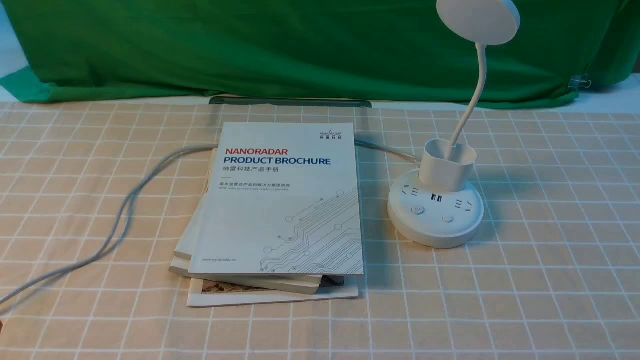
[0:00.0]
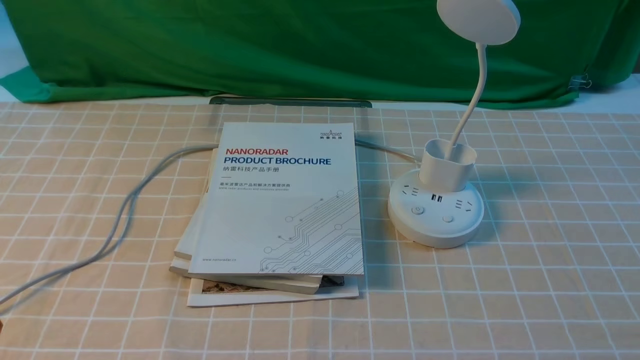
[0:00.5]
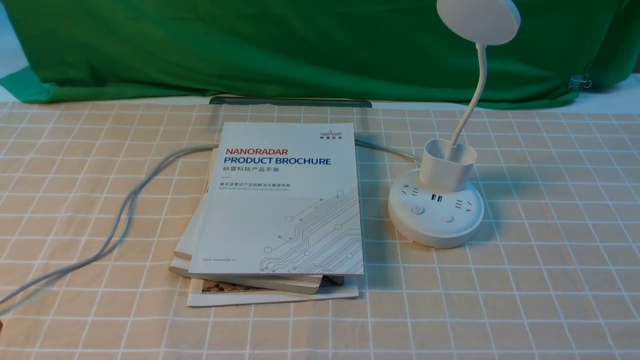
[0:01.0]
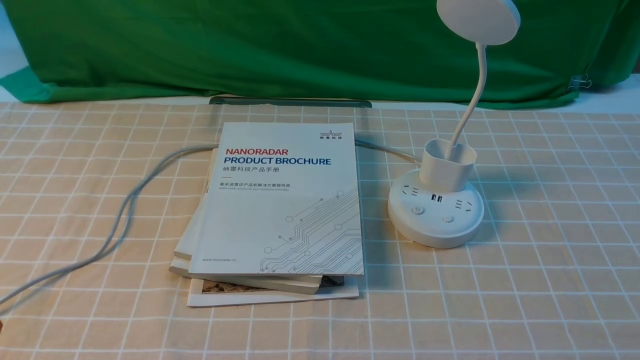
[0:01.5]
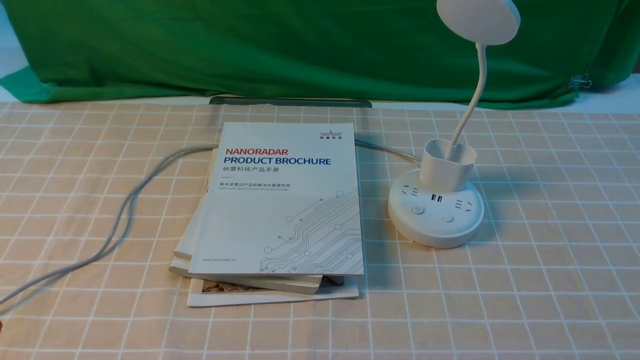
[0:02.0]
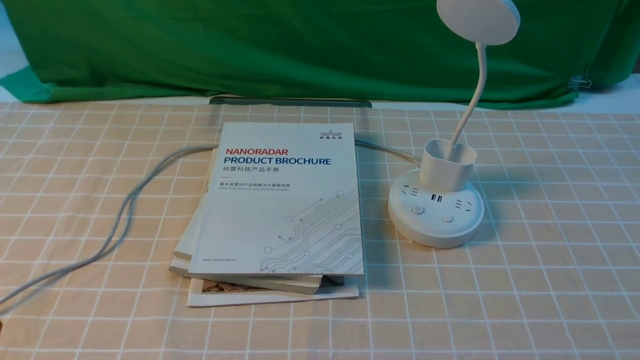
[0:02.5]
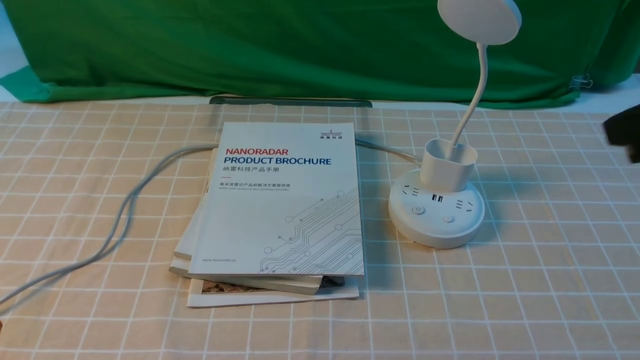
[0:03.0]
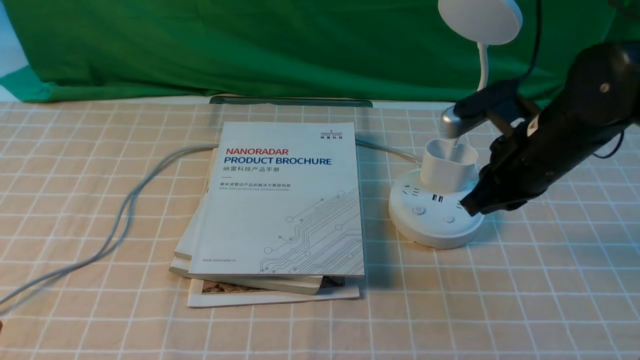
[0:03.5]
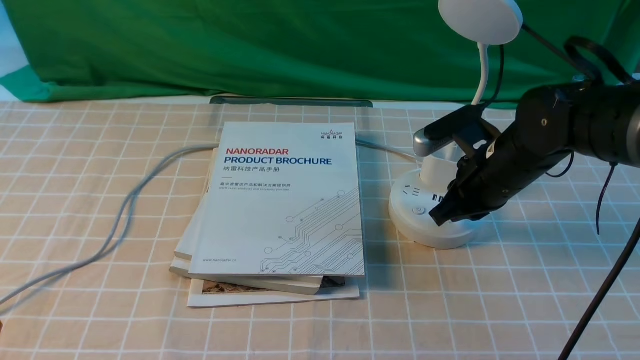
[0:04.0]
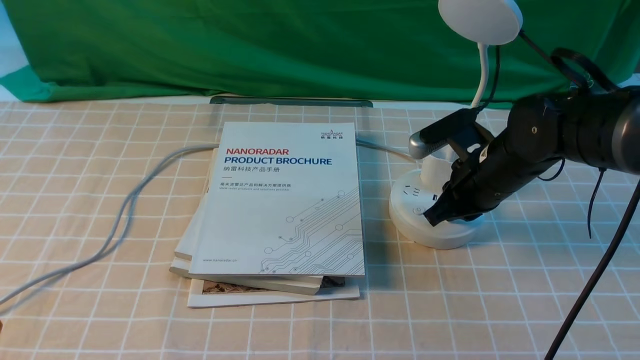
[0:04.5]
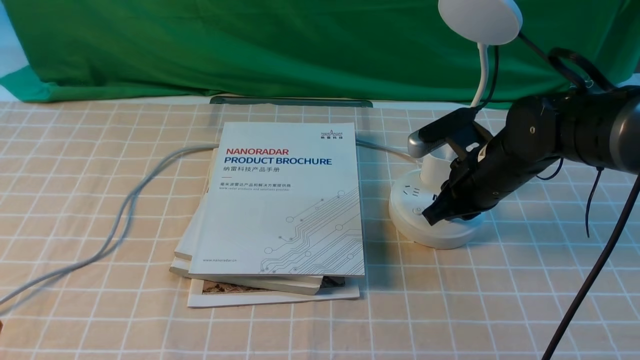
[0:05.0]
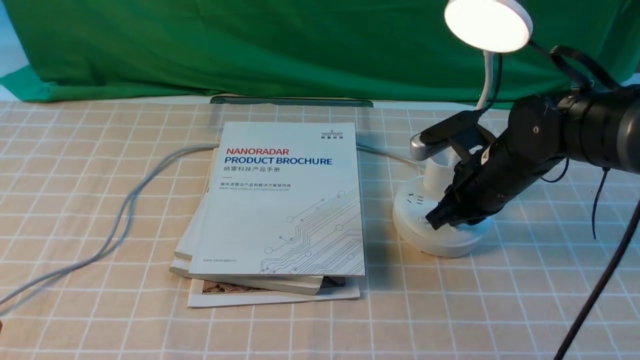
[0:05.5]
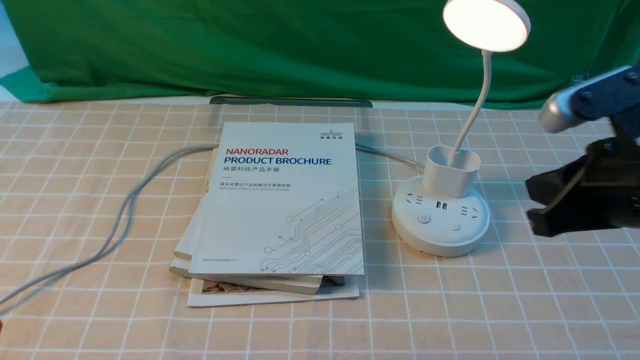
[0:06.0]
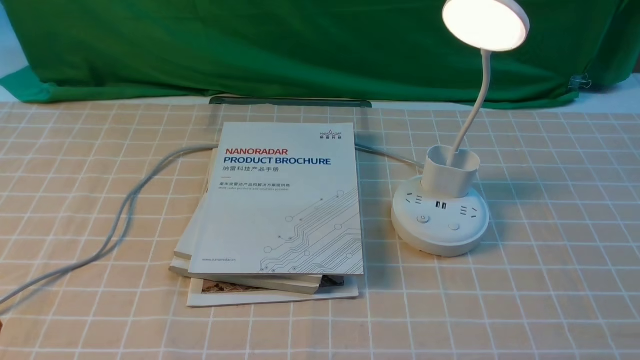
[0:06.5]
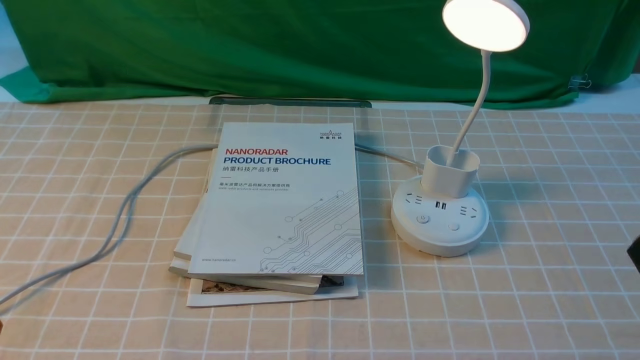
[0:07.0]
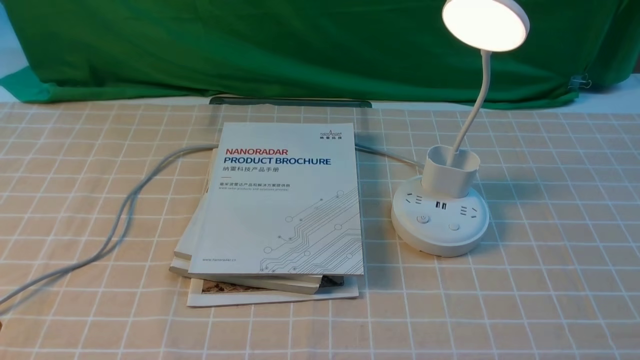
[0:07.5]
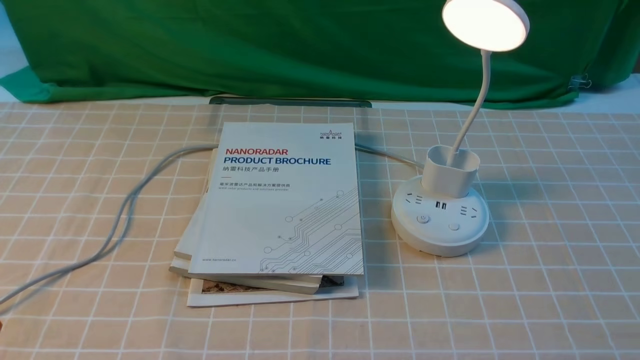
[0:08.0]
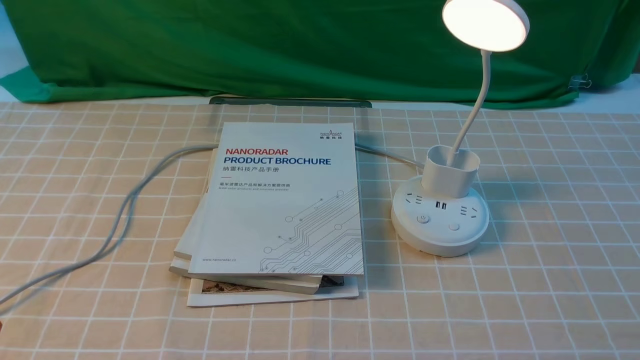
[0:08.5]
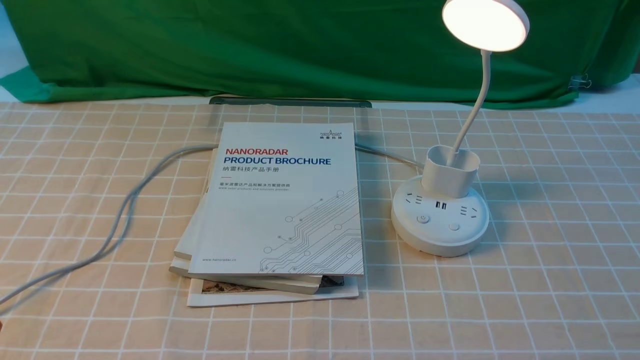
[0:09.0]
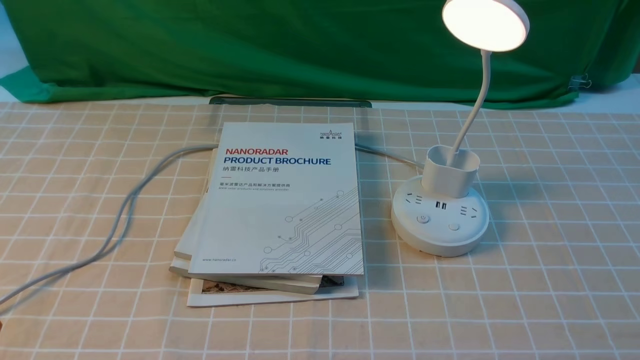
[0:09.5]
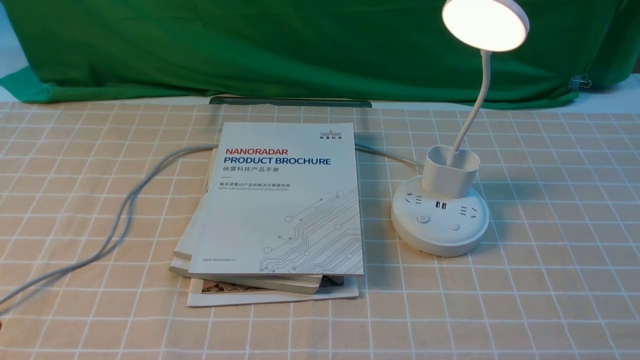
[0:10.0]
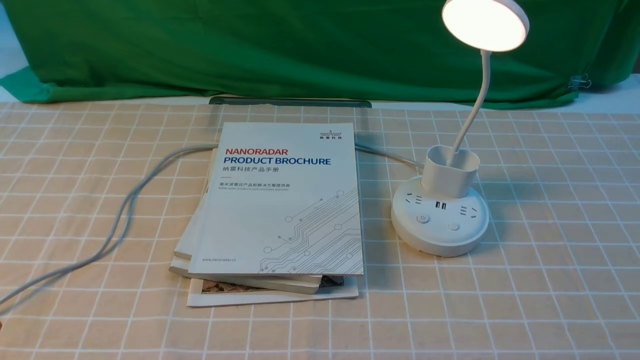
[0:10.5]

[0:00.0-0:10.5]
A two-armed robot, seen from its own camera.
Step, 0:00.0 to 0:05.5: use the right arm to press the button switch on the lamp holder.
0:02.0 to 0:04.0: The right gripper goes roughly 35 cm forward and to the left, and closes its fingers.
0:04.0 to 0:06.5: The right gripper is displaced backward and upward by about 25 cm.
0:08.5 to 0:10.5: The two grippers keep their place.
